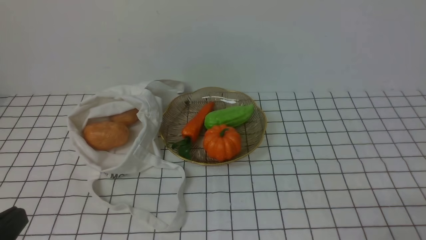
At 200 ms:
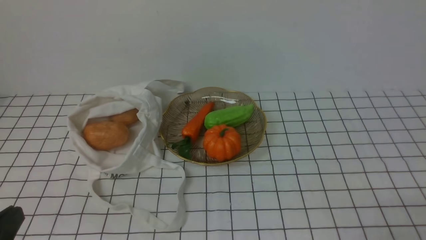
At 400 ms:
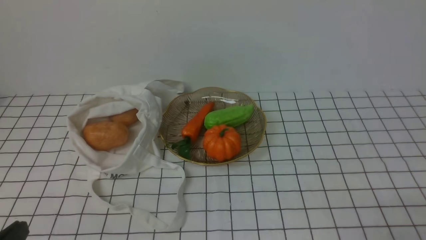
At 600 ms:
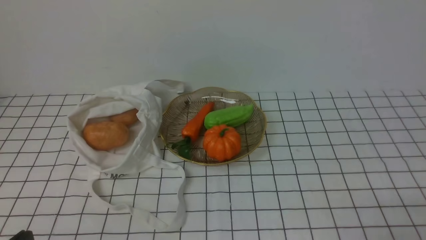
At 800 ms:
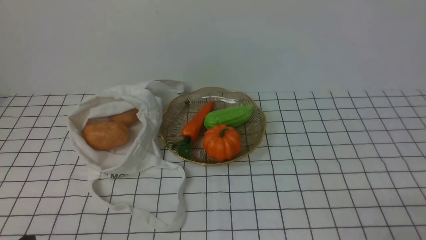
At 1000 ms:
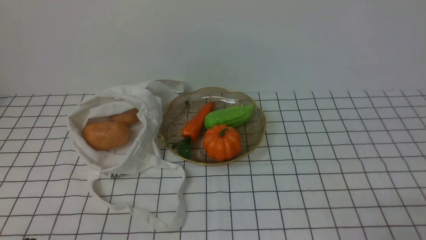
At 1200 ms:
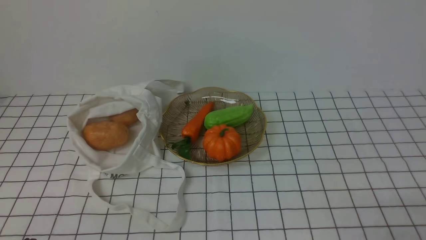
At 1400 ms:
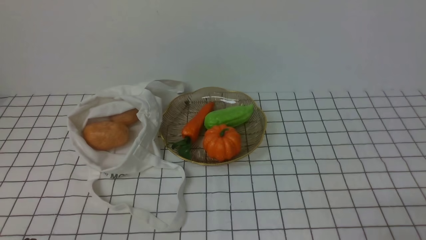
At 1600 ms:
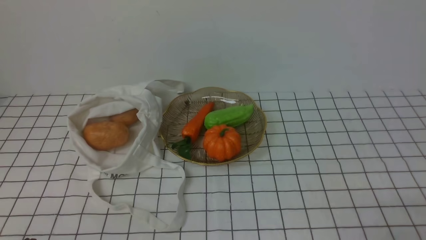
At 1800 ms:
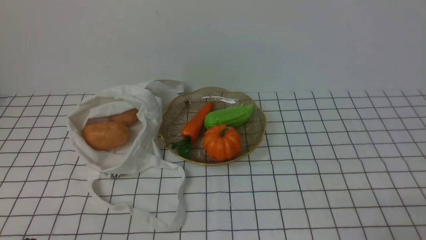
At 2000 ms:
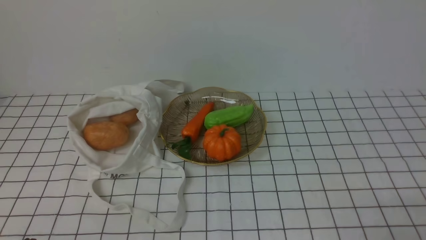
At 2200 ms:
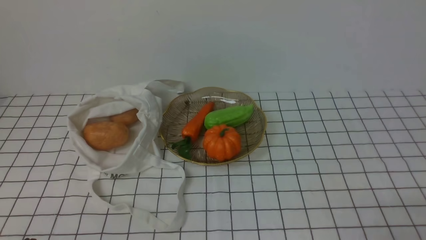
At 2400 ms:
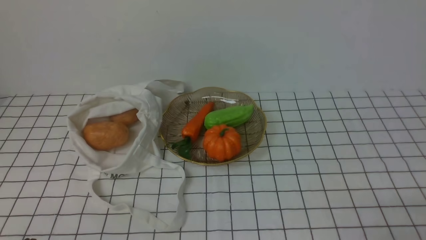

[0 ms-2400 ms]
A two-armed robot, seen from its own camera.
Task of the whole recording: take vegetables from bag on white checkered tablecloth place on plate.
0 ms to 1200 ms: The left gripper moves downward, roughly 10 cm.
1200 ms to 2400 ms: Both grippers stay about where they are.

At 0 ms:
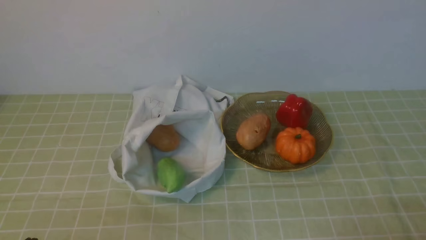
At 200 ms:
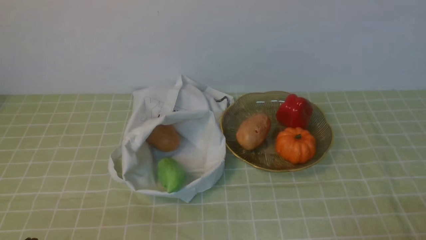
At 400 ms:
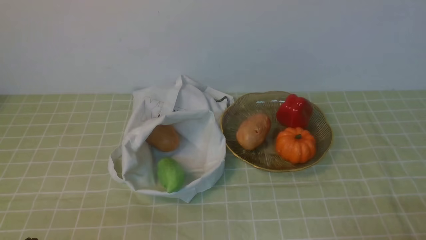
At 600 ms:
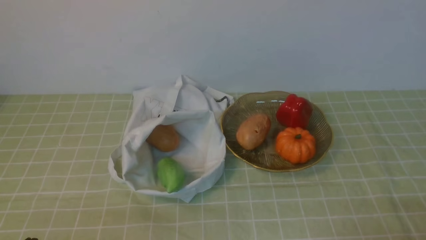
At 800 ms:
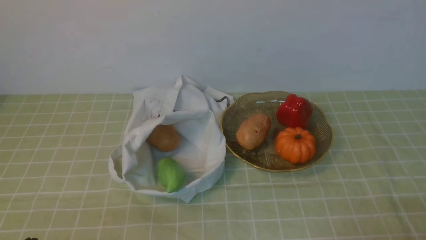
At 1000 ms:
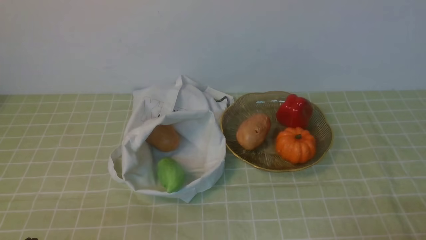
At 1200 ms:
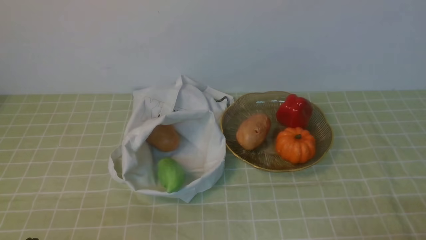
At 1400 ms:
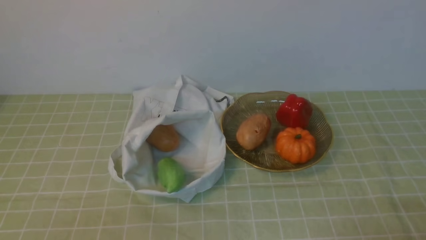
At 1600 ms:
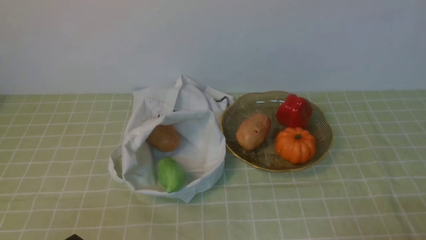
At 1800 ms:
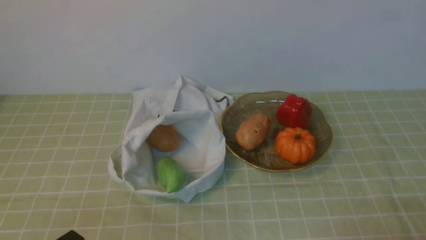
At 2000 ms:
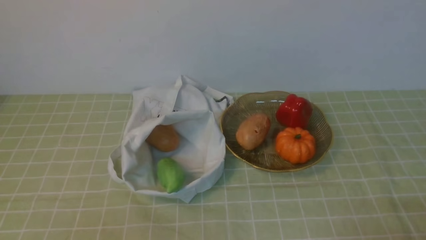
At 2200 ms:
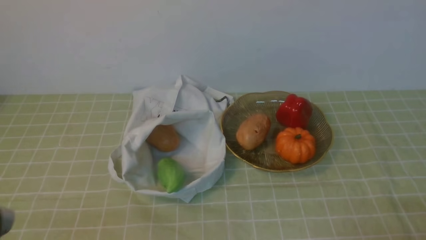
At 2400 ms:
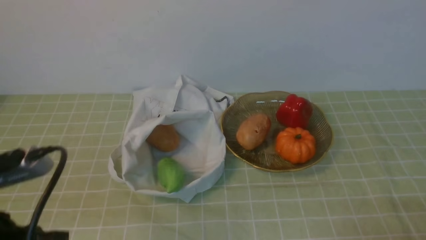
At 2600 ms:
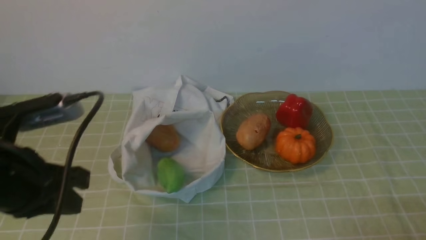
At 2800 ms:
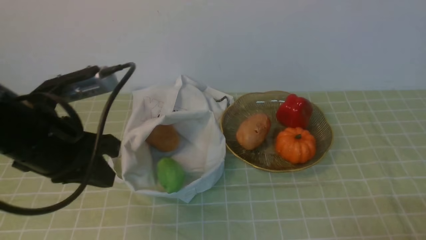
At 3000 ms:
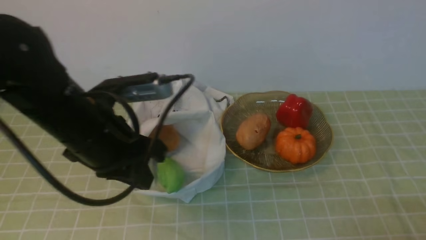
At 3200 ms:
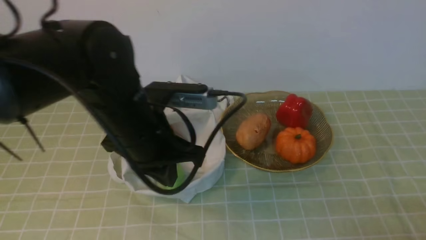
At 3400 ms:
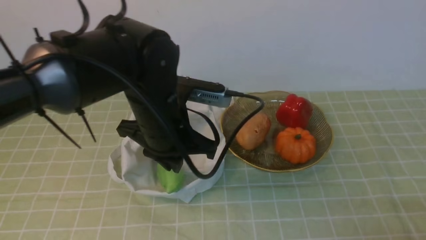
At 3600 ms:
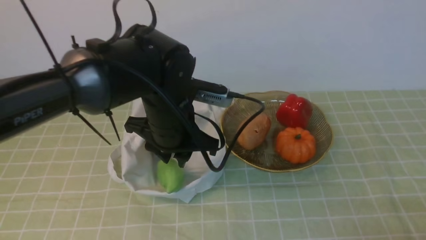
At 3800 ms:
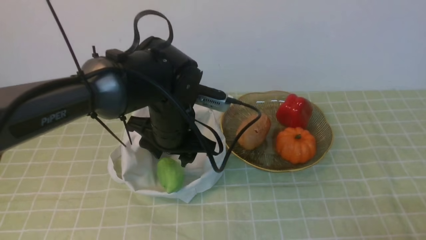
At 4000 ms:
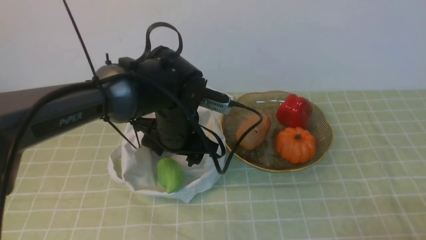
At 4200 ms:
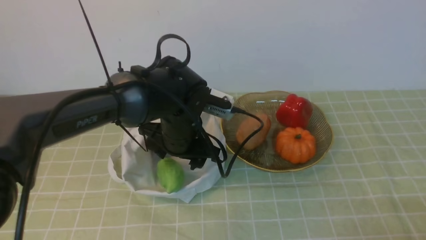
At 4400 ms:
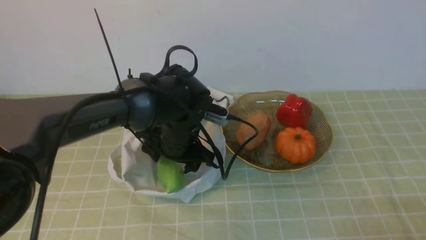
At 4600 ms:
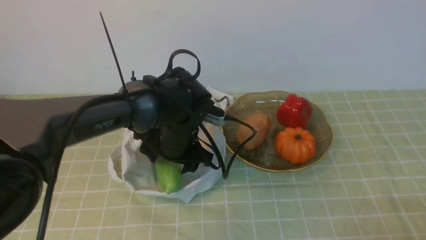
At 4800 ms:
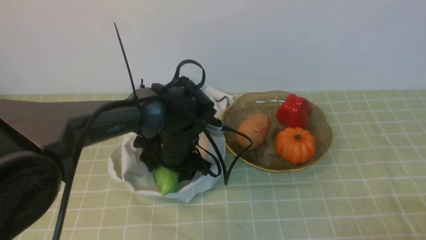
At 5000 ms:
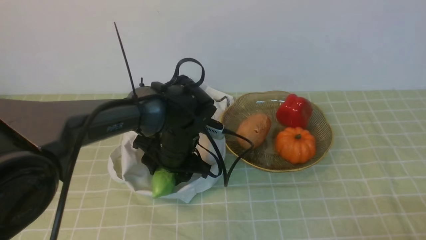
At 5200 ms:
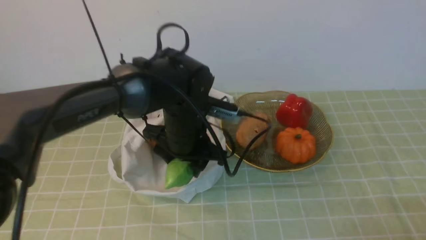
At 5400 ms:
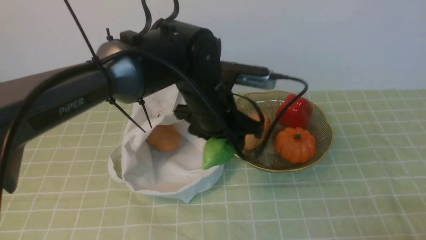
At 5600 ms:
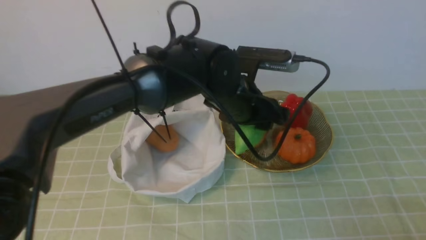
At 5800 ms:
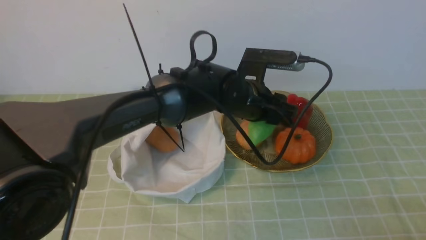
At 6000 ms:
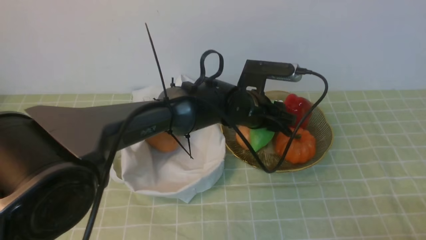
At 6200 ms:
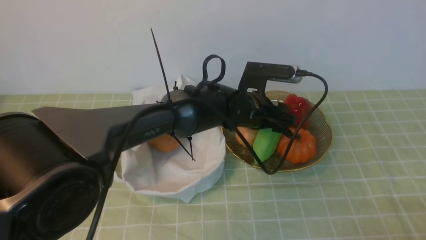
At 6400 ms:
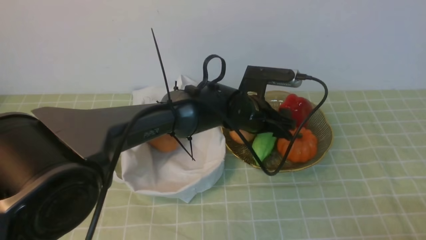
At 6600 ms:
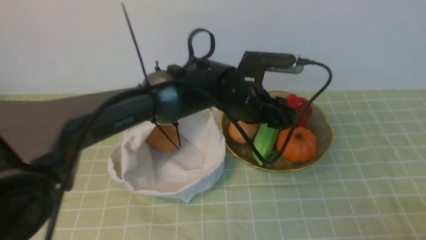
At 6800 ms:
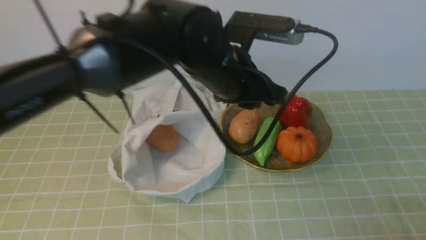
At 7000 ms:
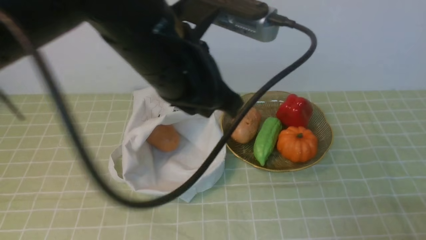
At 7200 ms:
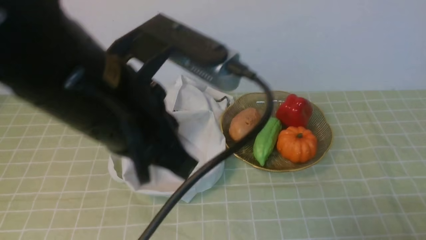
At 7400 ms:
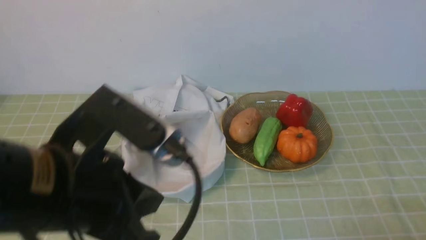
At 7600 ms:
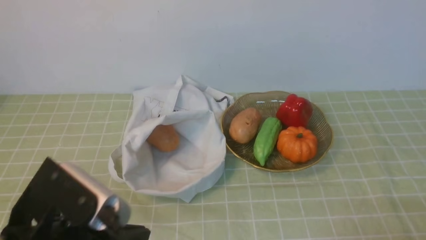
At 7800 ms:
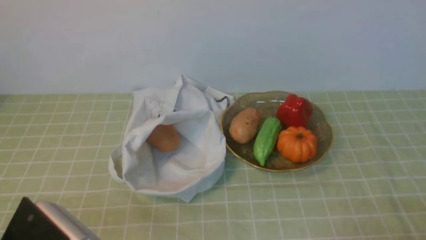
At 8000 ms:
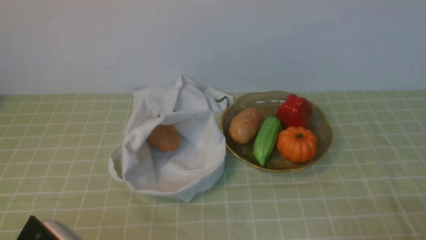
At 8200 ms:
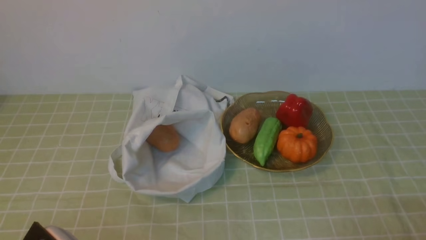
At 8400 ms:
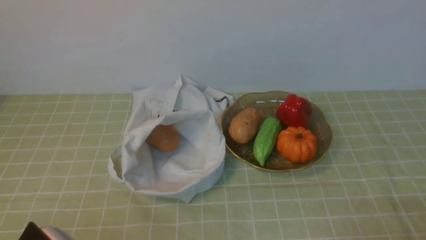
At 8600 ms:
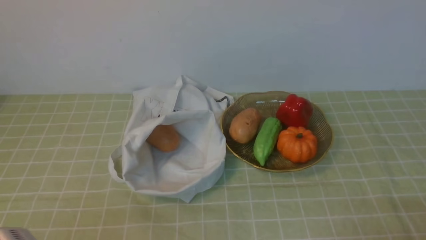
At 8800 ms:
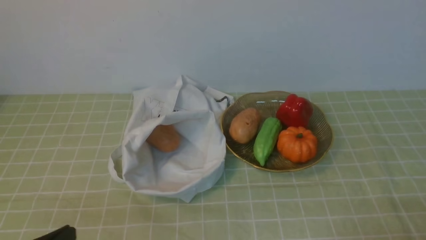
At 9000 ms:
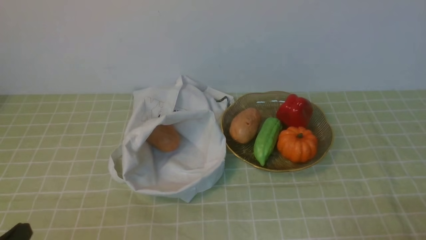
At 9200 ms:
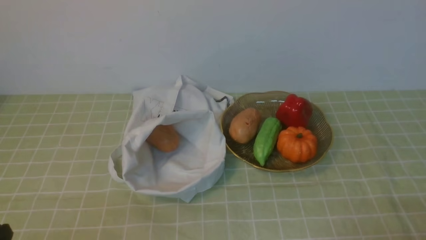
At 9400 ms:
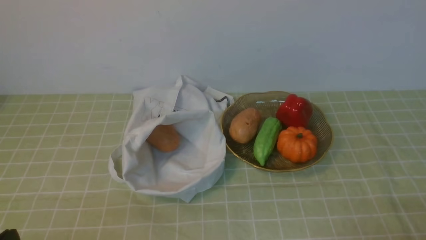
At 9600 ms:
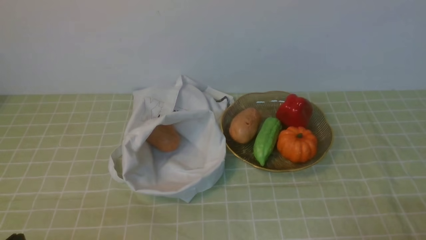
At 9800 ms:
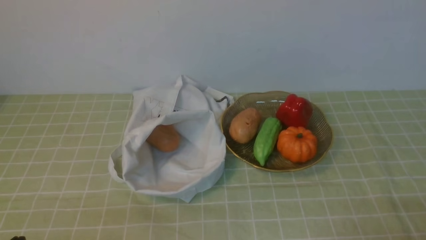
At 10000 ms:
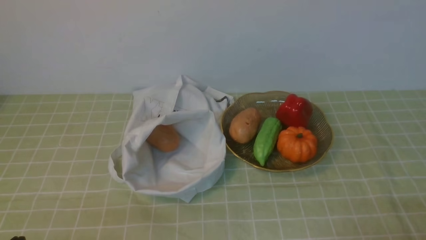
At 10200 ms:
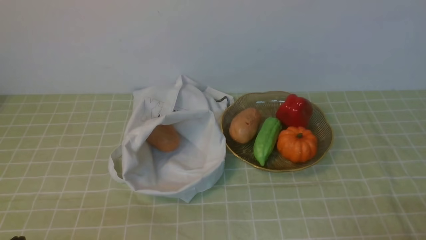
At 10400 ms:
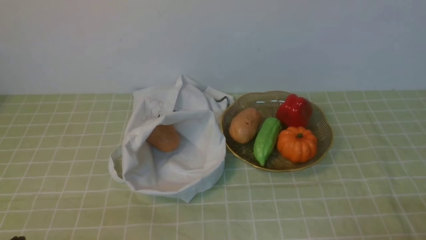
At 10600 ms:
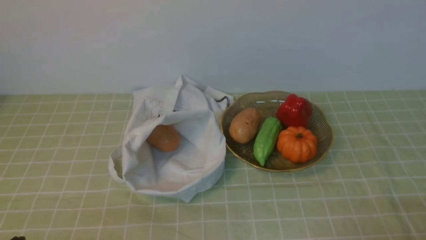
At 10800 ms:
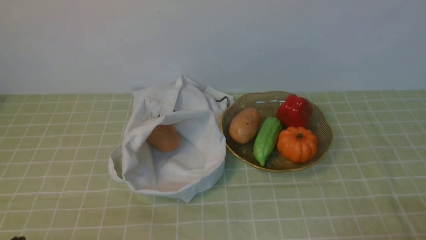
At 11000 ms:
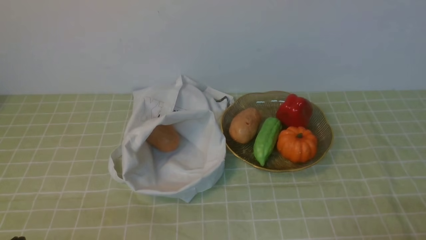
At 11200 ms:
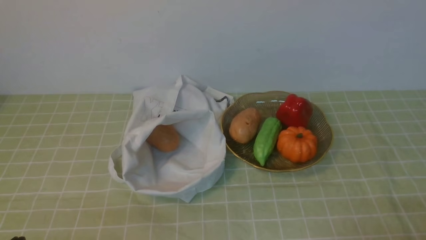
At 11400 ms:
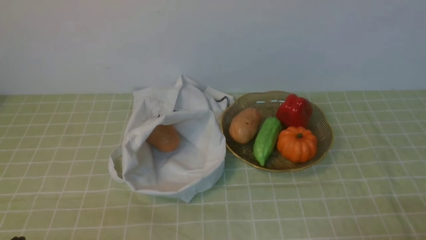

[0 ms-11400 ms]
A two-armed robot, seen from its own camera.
Task of the whole recording: take vegetables from bag on green coffee tablecloth place on plate.
Step, 0 ms to 4600 ms: Grasp the bitter melon with left gripper.
Step, 5000 ms to 6600 ms: Place the bitter melon on the plate with left gripper.
1400 ms to 2800 ms: The left gripper heads forward and upward, covering about 20 cm.
2800 ms to 4200 ms: The left gripper shifts about 20 cm to the right, forward and downward, and opens its fingers.
4200 ms to 5600 ms: The left gripper travels to the right by about 10 cm.
5600 ms to 7200 ms: The left gripper is displaced backward, upward and to the left by about 25 cm, and closes.
7200 ms to 8600 ms: The left gripper is displaced downward, backward and to the left by some 20 cm.
10000 ms to 11400 ms: Neither gripper changes place.
